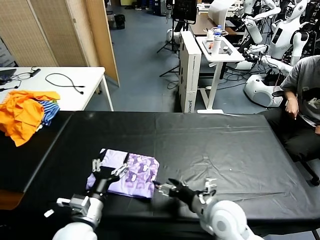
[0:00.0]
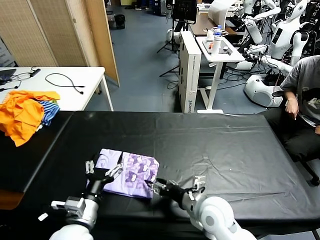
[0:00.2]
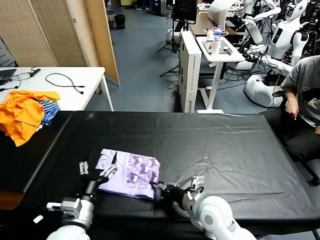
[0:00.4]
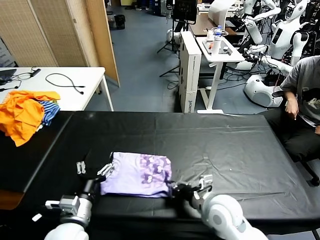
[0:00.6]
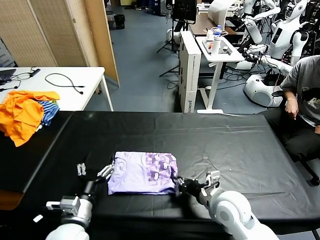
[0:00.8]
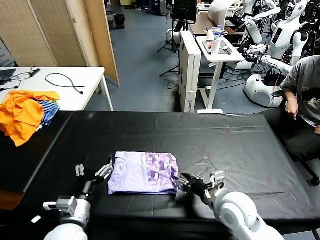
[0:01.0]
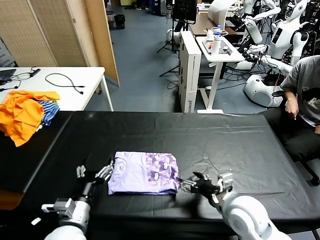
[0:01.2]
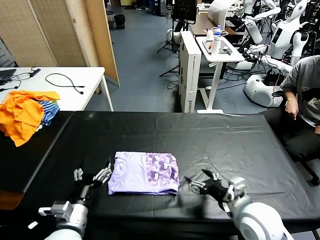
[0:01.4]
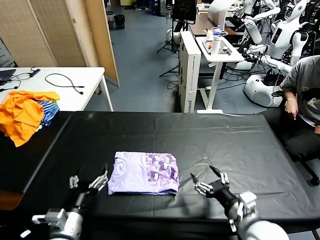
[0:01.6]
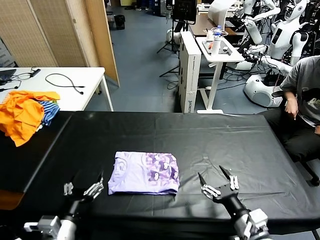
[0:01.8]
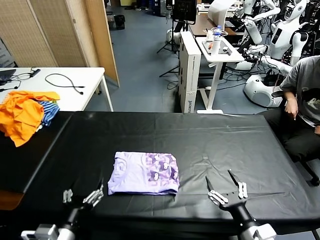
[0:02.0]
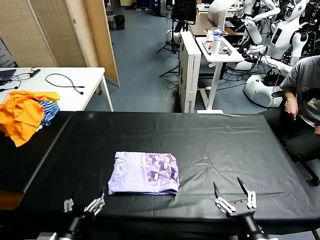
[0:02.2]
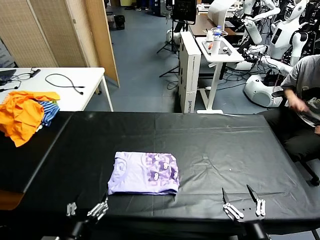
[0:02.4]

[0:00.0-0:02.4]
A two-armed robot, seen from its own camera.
Task of the whole recording: fold and organize the clothes.
Step, 0:00.0 to 0:01.2: Drag the clothes to the center of the table.
0:00.0 to 0:01.2: The right gripper closes and opens again.
0:01.2 to 0:02.4: The right gripper moves backward, approximately 15 cm, while the left gripper moves backward, approximately 10 cm.

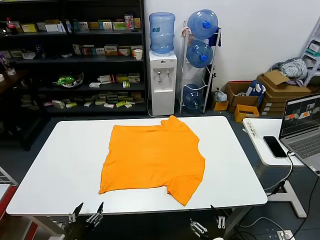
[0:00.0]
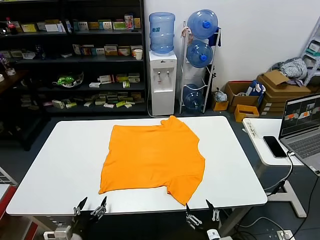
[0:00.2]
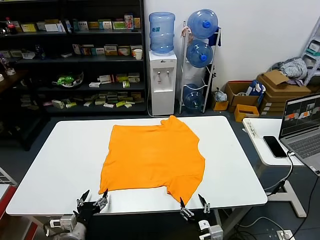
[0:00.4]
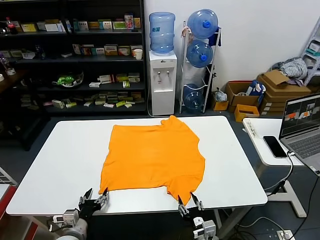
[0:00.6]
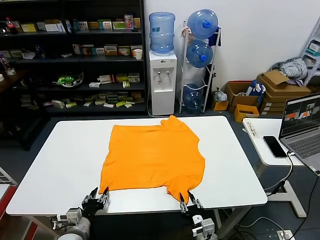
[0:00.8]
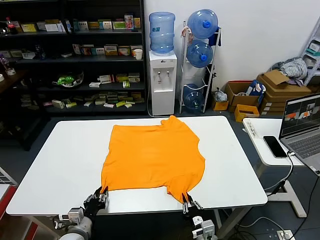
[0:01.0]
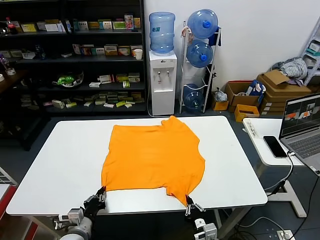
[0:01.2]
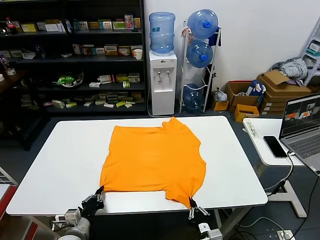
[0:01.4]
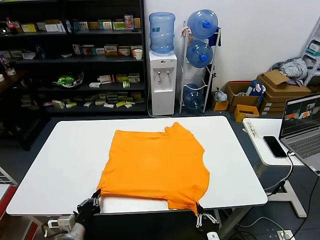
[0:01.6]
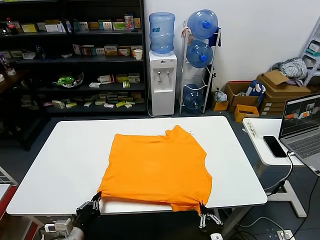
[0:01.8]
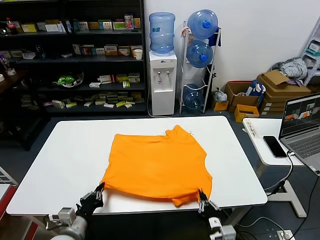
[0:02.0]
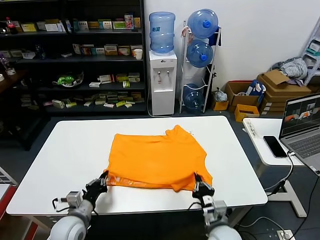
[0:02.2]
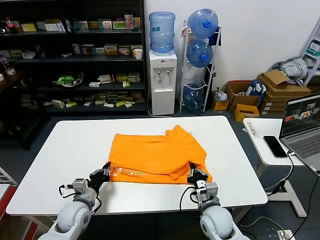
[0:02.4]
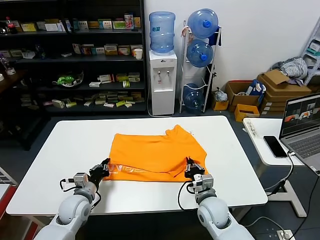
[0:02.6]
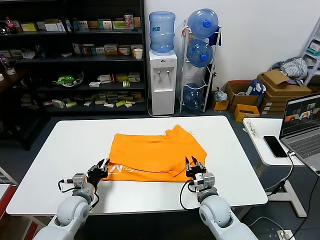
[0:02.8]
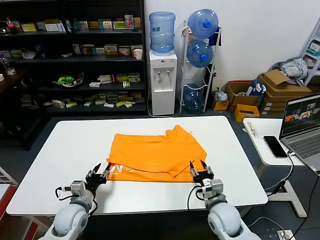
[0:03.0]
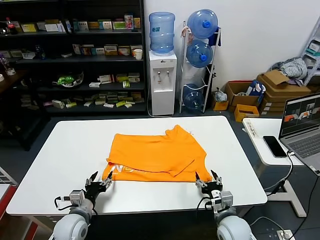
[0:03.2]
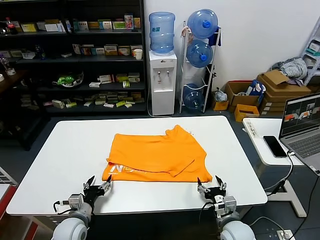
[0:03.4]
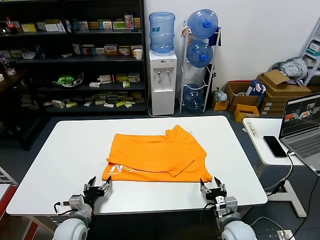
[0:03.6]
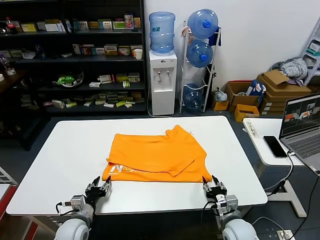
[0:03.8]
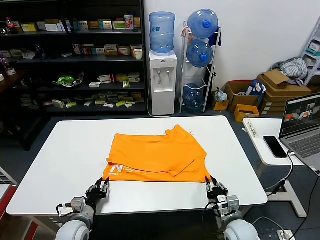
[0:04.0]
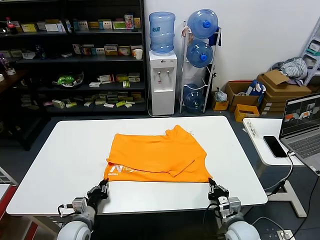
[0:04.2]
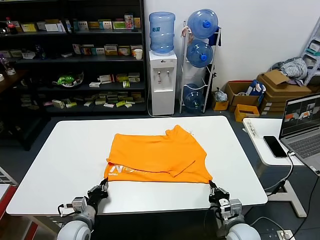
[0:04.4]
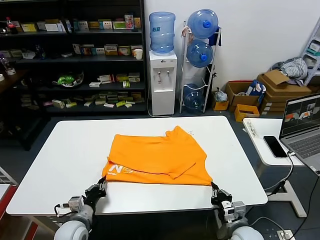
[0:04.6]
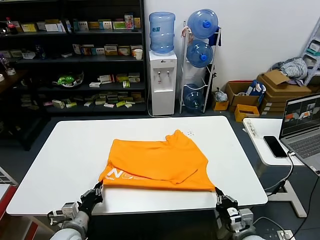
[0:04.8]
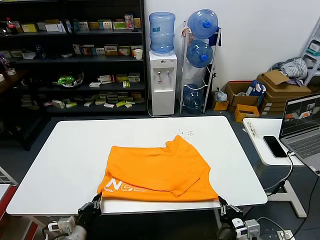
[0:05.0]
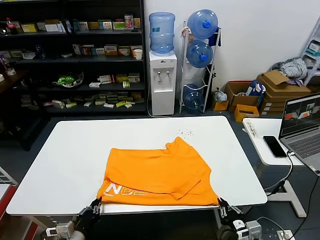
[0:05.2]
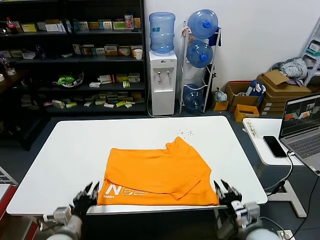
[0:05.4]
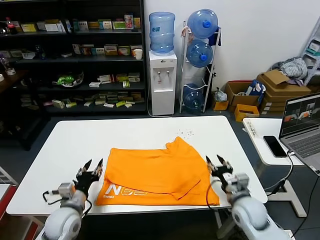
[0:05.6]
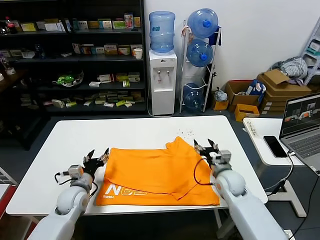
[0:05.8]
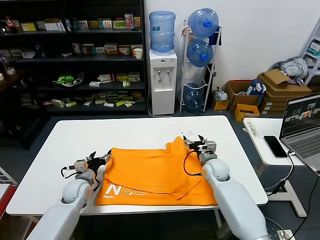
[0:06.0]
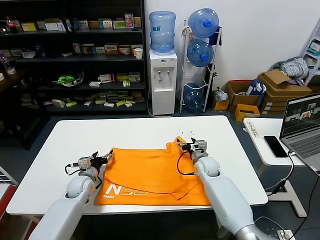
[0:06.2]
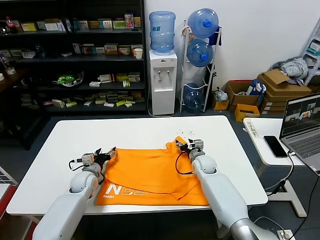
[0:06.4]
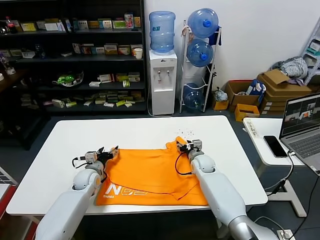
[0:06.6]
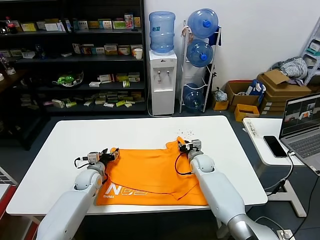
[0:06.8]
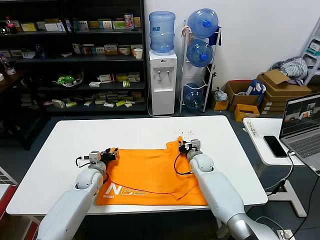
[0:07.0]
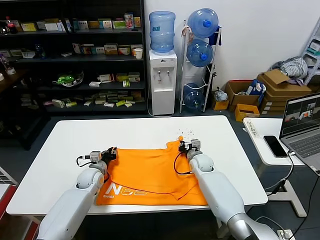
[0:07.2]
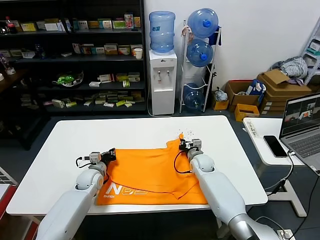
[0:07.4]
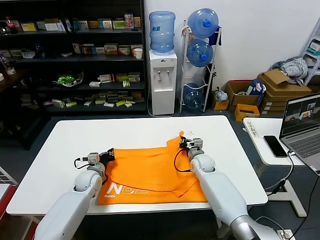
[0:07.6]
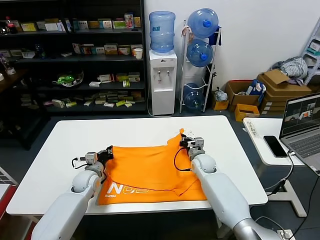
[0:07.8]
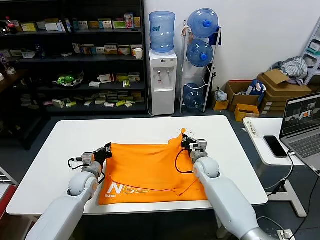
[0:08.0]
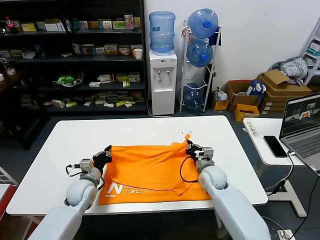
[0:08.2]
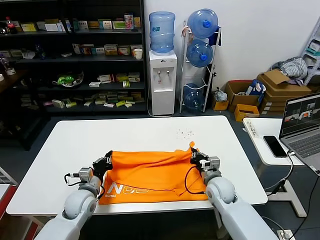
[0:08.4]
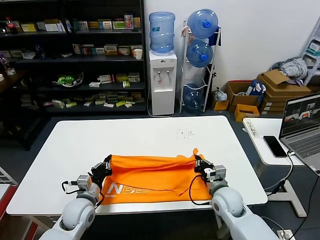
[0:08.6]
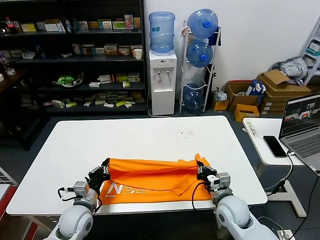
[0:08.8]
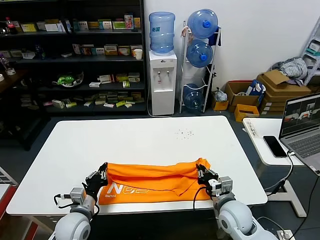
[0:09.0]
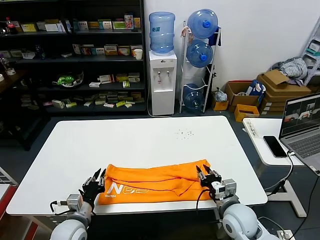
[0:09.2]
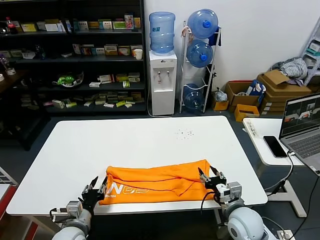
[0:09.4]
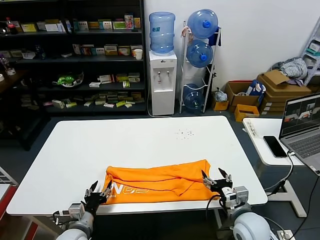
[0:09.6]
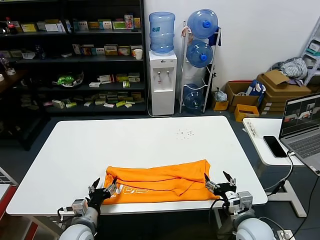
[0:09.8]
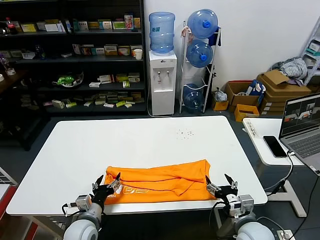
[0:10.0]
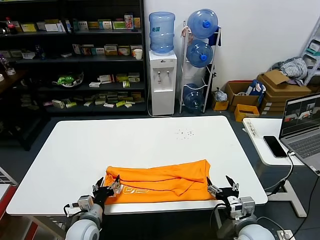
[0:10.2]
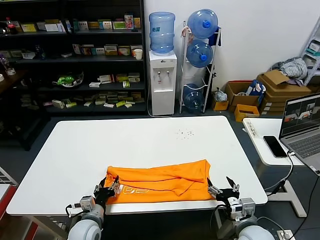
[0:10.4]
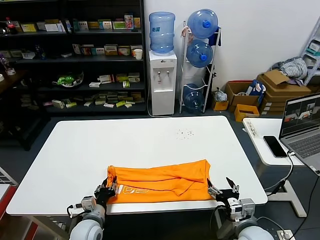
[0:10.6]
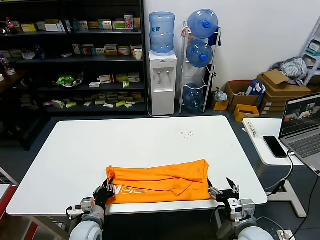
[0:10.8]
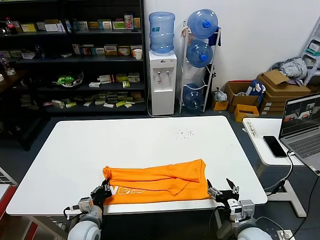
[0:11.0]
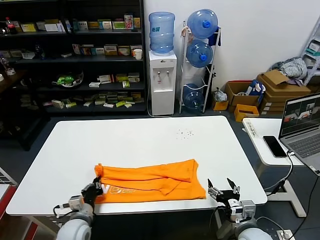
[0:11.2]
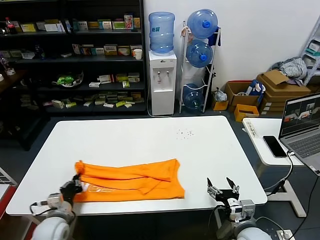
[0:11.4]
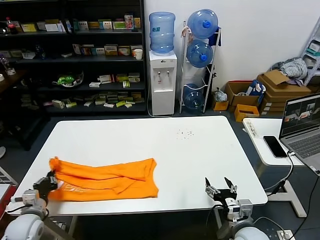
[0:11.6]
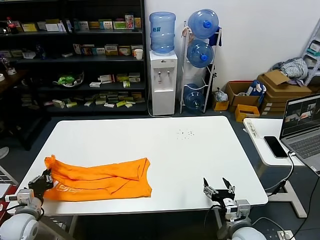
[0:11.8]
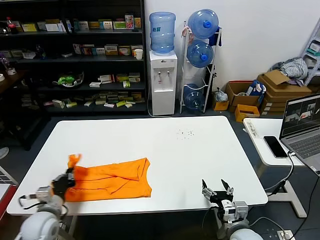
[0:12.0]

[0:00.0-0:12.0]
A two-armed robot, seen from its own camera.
Task of the whole recording: fold and organize the clothes.
Step, 0:00.0 to 0:01.0: use both grippers simultaneously to clamp the lower edge of the clothing fabric.
Step, 0:01.4 to 0:02.8: use both grippers to drag the lower edge of the fabric forward and fold it over the upper edge.
Step, 0:03.0 to 0:05.2: Drag the clothes downward with both gripper.
Step, 0:05.4 to 0:07.2: use both grippers simultaneously to clamp the upper edge of the clothing fabric.
Step, 0:07.6 to 0:09.0: use both grippers to drag the upper edge of the fabric backward and fold it over the lower edge.
Step, 0:09.2 to 0:10.8: use the left gripper to clamp the left edge of the fabric.
0:01.6 to 0:03.0: The left gripper travels forward by approximately 10 cm, and opens. The right gripper moves forward, roughly 15 cm, and opens its fingers.
0:03.0 to 0:04.4: The left gripper heads downward, covering approximately 5 cm, and closes. Meanwhile the right gripper travels to the right by roughly 5 cm, and closes its fingers.
0:04.4 to 0:06.0: The right gripper goes roughly 25 cm forward, and opens. The left gripper shifts about 15 cm forward, and opens.
0:06.0 to 0:07.6: The left gripper is displaced forward by about 5 cm, and closes its fingers. The right gripper ends up approximately 5 cm from where it was, and closes its fingers.
0:07.6 to 0:09.0: Both grippers travel together backward, roughly 20 cm.
0:09.0 to 0:10.4: The right gripper moves backward, about 5 cm, and opens. Meanwhile the left gripper travels downward by some 5 cm, and opens.
0:10.4 to 0:12.0: The left gripper travels to the left and upward by about 15 cm, and closes.

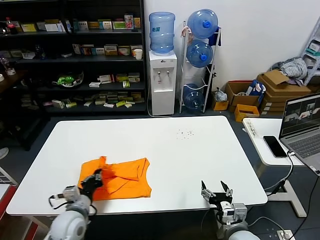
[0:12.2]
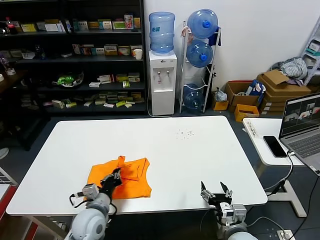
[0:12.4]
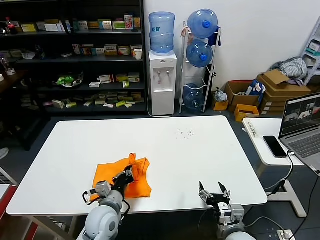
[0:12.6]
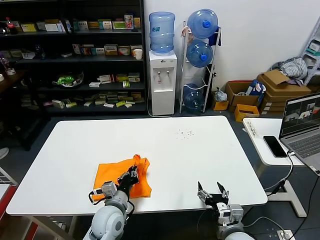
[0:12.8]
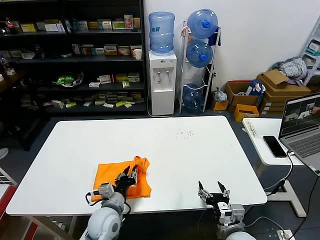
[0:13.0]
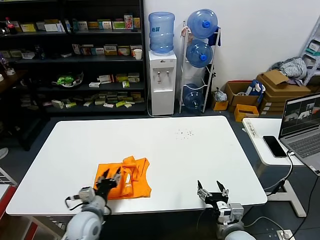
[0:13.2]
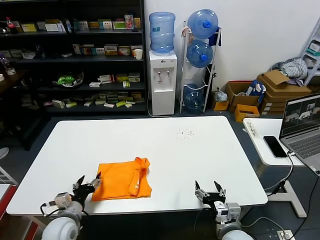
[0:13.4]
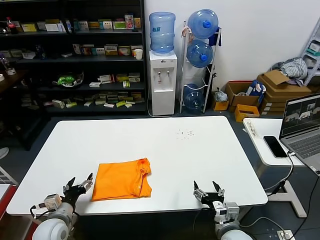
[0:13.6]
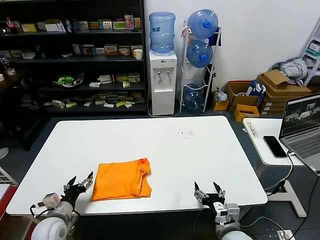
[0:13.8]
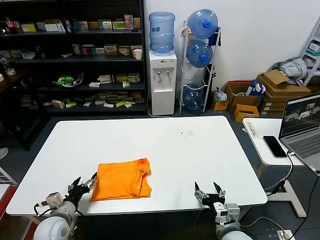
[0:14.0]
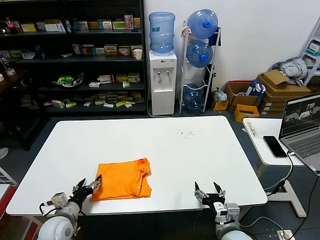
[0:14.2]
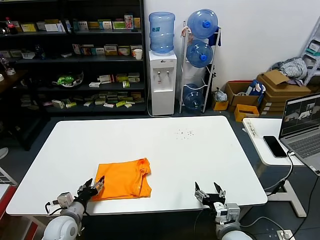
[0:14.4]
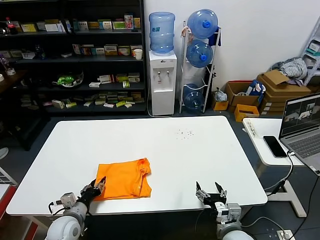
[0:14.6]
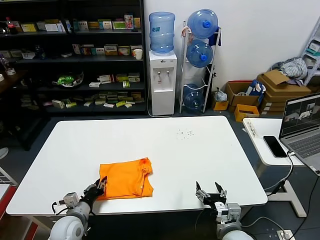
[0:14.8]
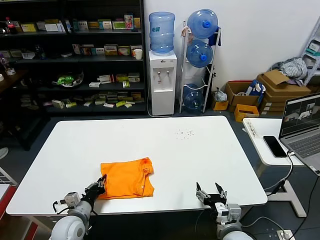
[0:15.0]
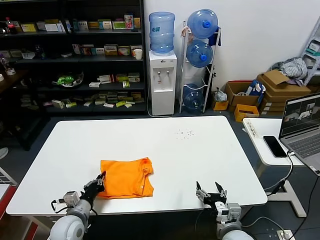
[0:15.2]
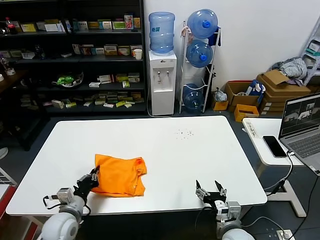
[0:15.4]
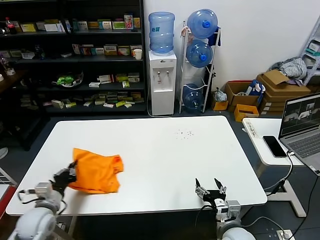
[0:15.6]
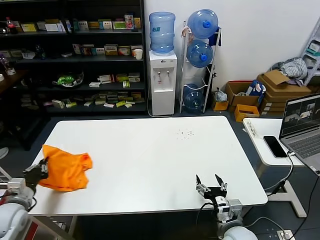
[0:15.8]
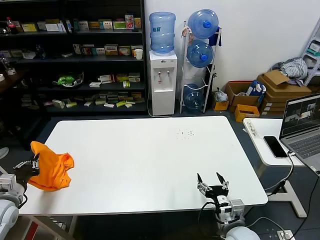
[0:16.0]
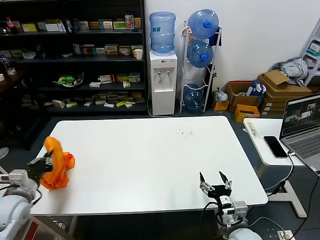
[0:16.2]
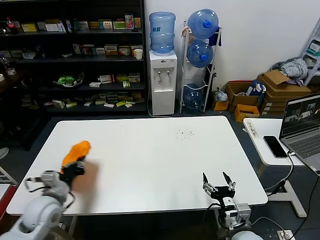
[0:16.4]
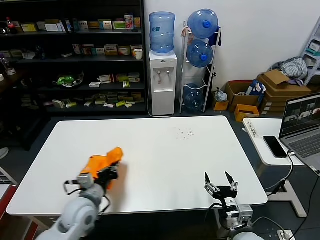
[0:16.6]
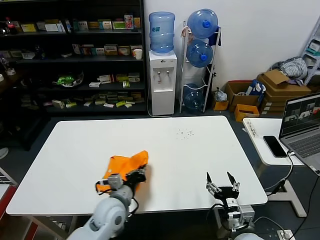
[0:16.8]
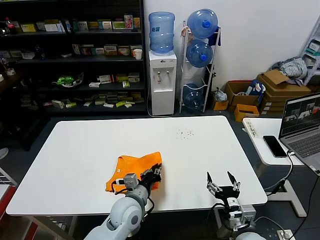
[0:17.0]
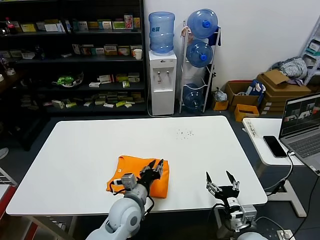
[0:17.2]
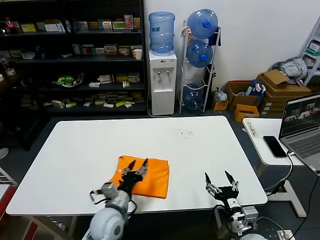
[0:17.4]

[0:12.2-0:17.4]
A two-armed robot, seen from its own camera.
Task of the whole recording: fold and organize the clothes.
Step, 0:13.4 to 0:17.0: Flip the folded clothes over with left gripper.
0:12.2 to 0:14.0: The left gripper moves roughly 15 cm to the right and comes back, and opens.
0:14.0 to 0:15.6: The left gripper closes its fingers.
0:15.6 to 0:17.4: The left gripper heads to the right, covering some 20 cm, and opens up.
